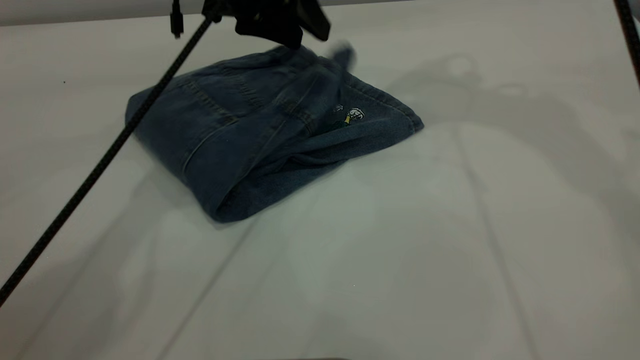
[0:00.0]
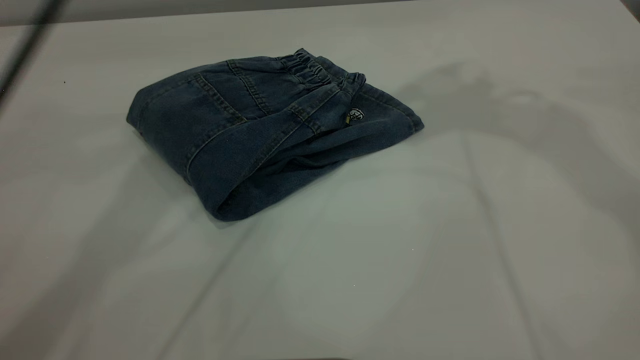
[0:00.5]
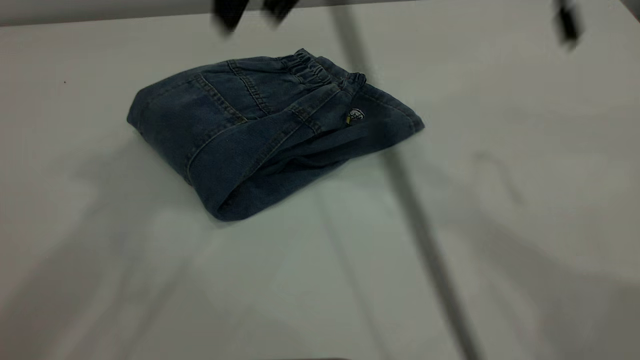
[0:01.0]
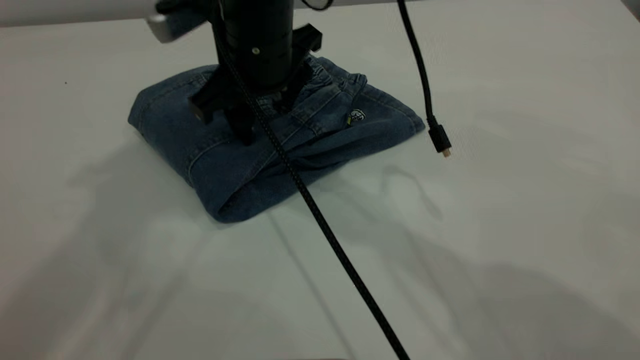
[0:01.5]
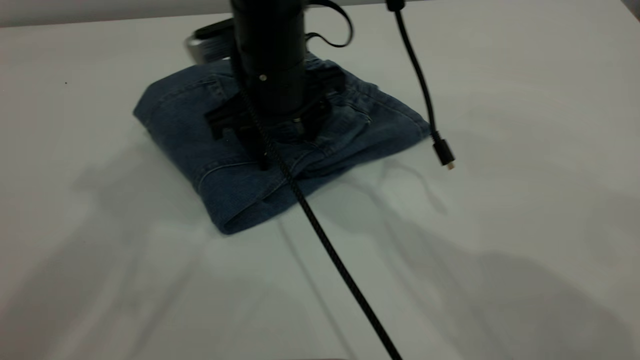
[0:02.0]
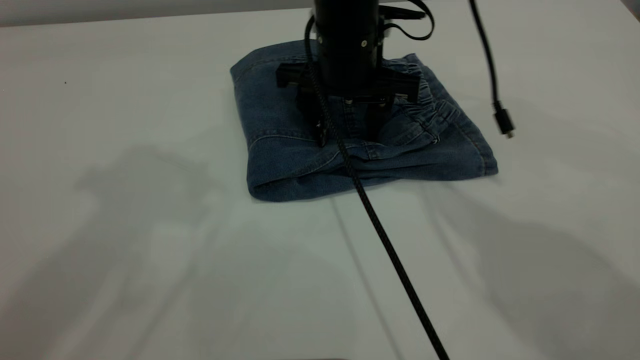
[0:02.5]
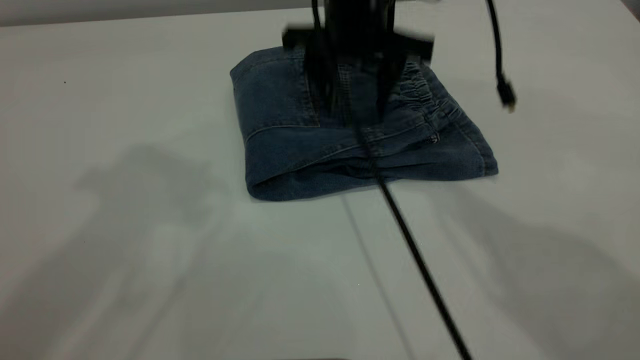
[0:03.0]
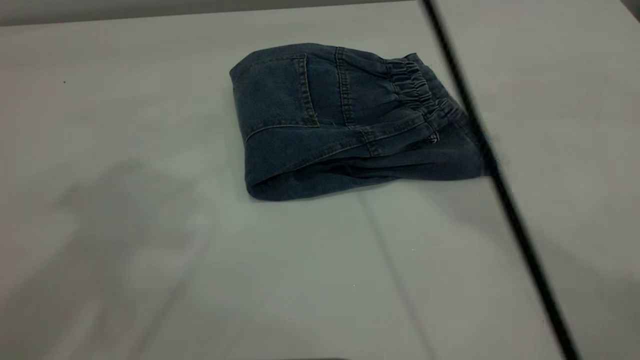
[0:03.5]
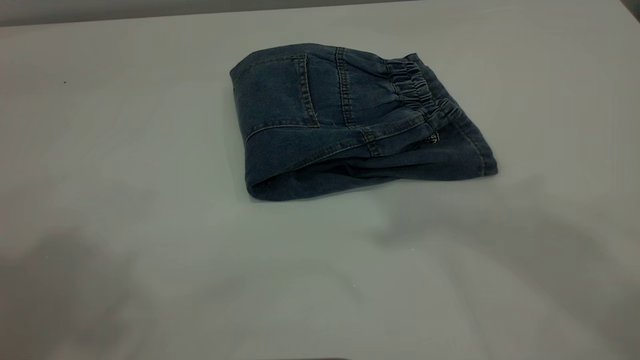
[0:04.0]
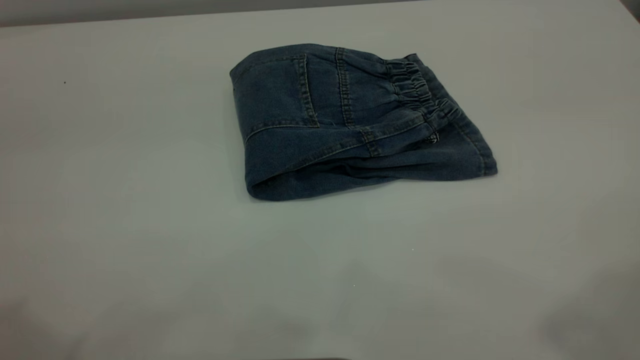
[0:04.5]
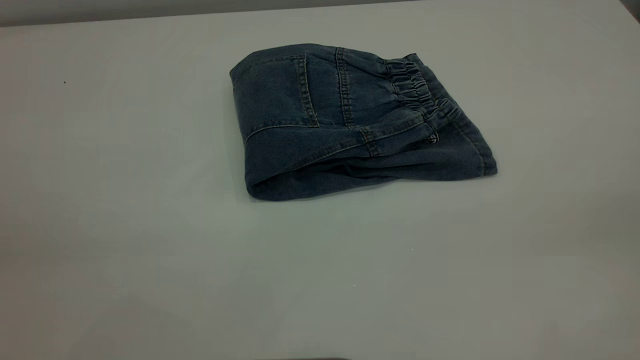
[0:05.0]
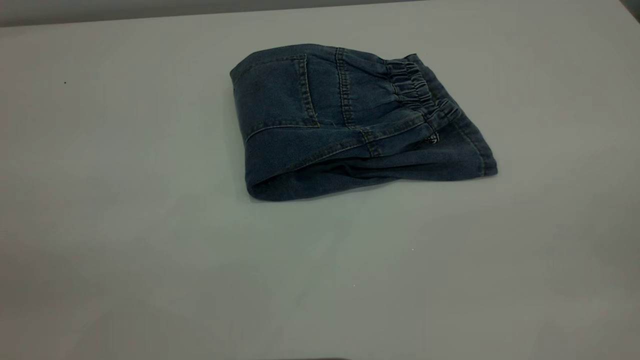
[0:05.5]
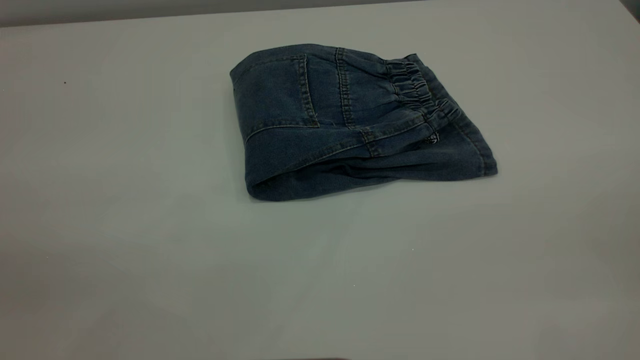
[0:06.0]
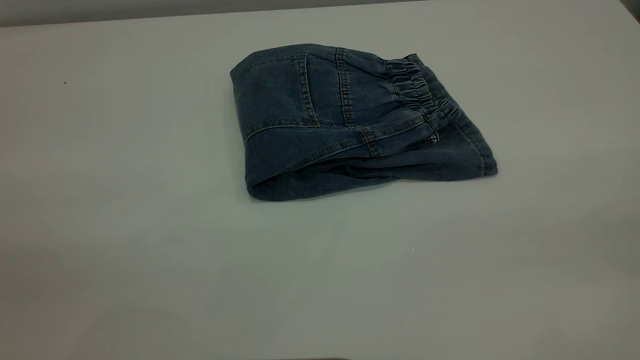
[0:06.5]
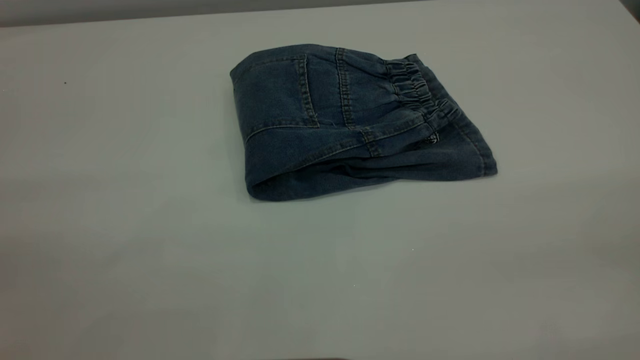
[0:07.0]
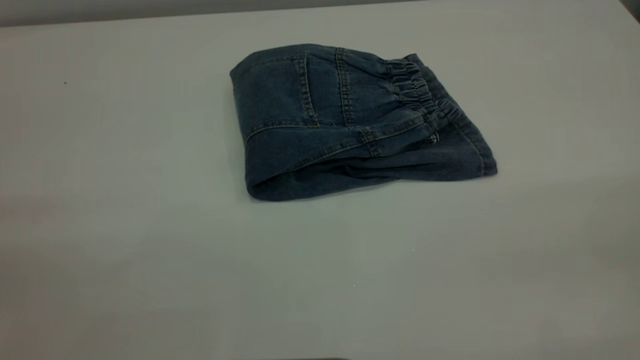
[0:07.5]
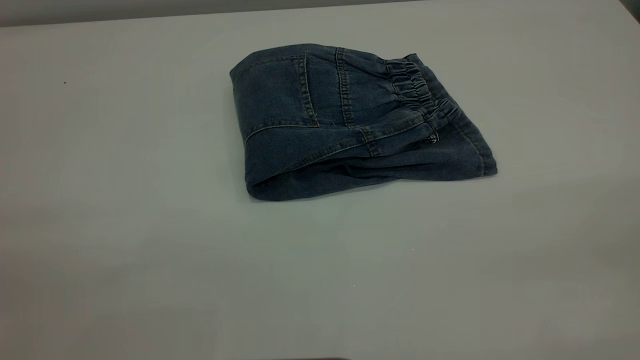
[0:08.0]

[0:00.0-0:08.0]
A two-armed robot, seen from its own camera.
0:00.0 to 0:02.0: The left gripper heads upward and backward, covering roughly 30 cm; the right gripper goes some 30 cm downward and to the left.
0:02.0 to 0:04.0: The right gripper travels upward and to the right by approximately 40 cm. Meanwhile the left gripper goes about 10 cm backward.

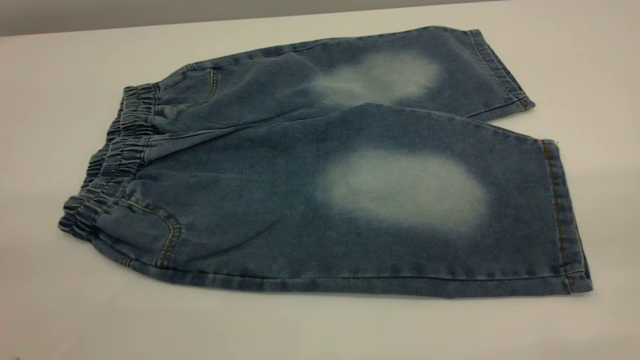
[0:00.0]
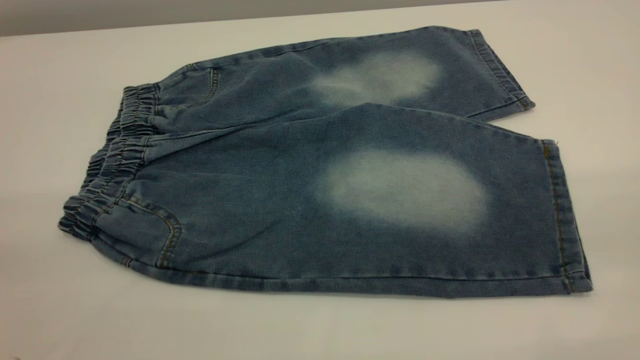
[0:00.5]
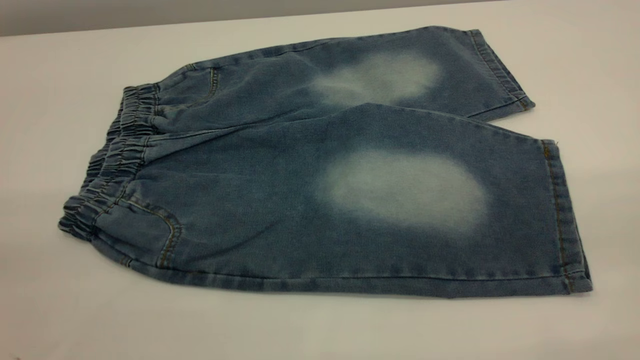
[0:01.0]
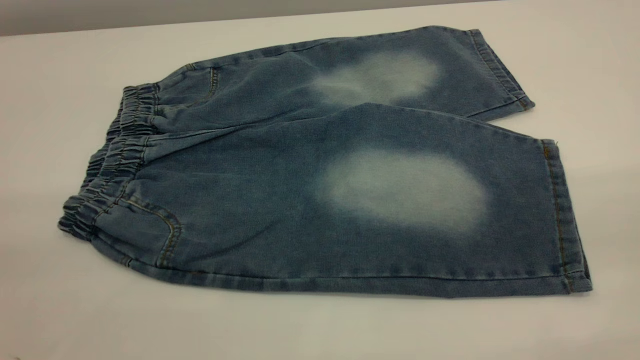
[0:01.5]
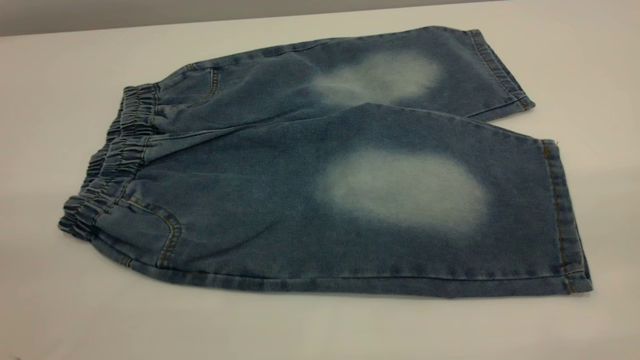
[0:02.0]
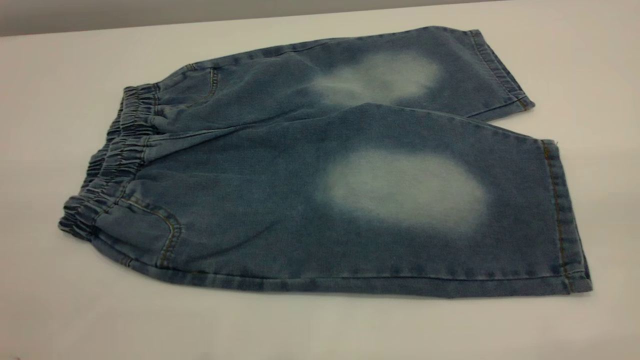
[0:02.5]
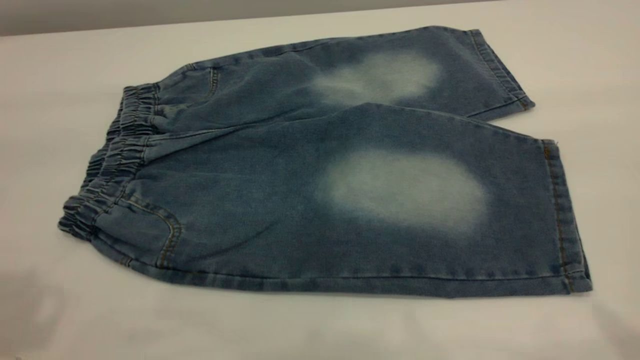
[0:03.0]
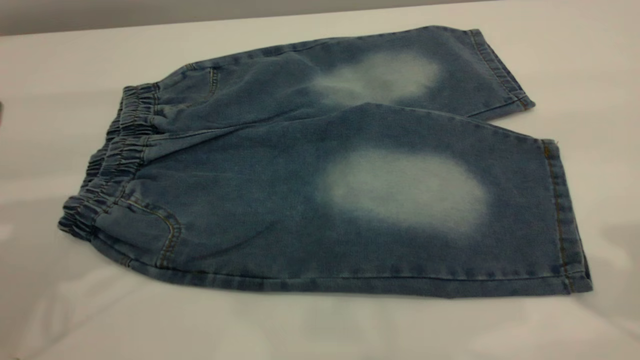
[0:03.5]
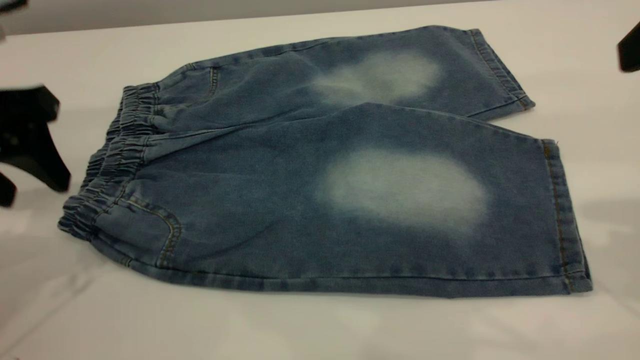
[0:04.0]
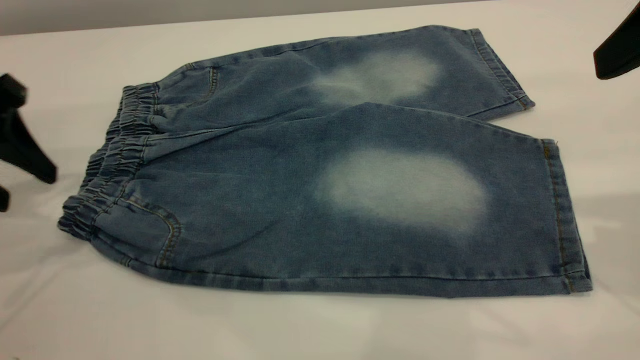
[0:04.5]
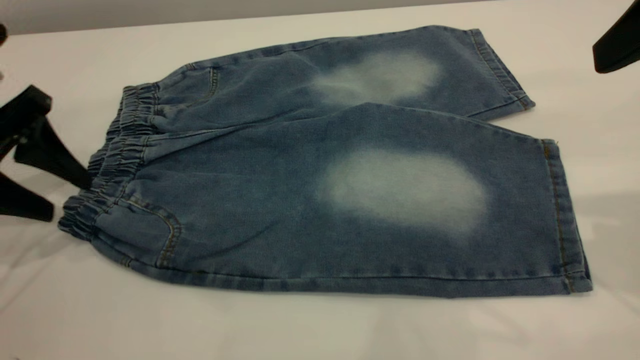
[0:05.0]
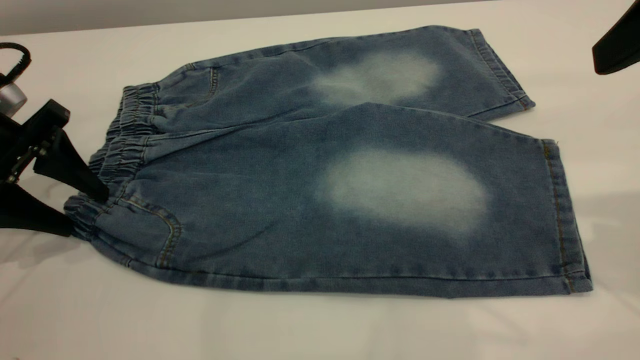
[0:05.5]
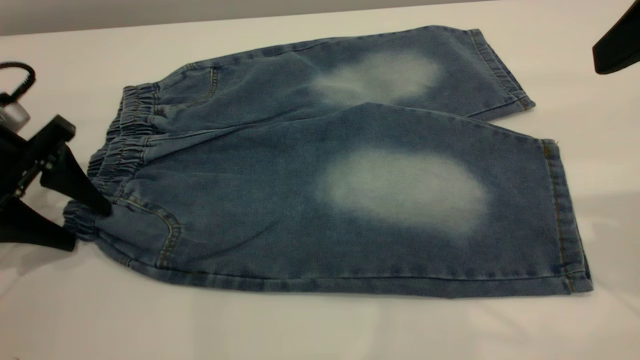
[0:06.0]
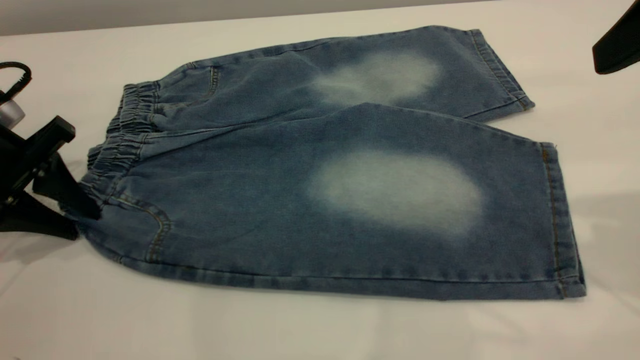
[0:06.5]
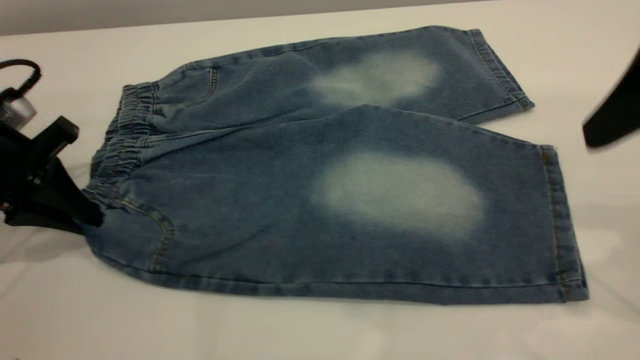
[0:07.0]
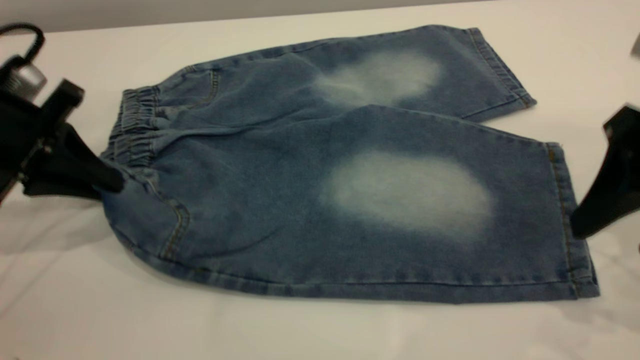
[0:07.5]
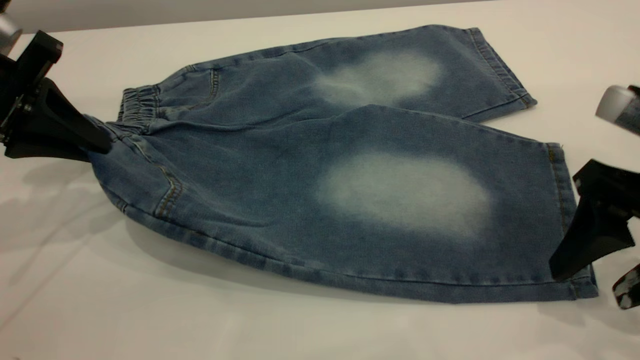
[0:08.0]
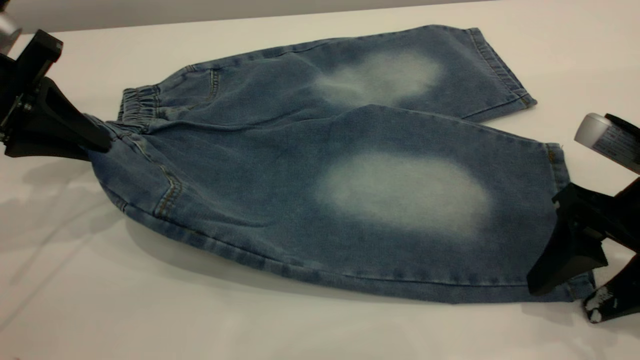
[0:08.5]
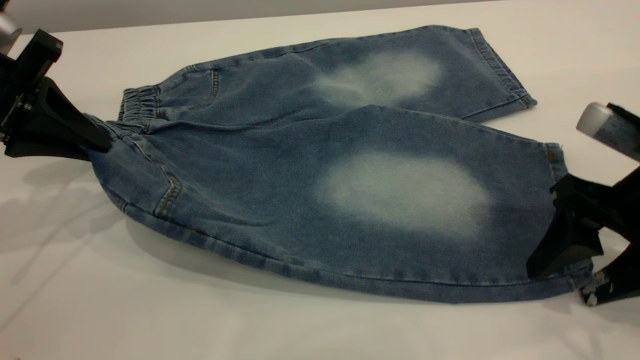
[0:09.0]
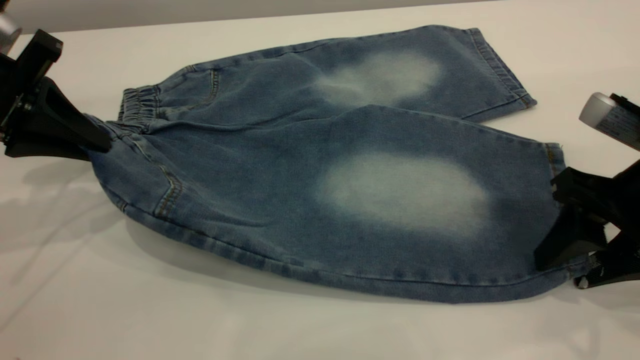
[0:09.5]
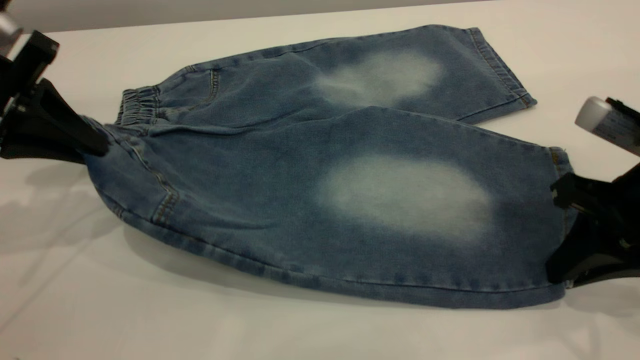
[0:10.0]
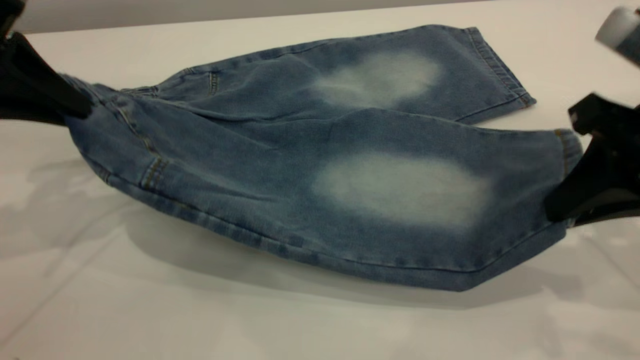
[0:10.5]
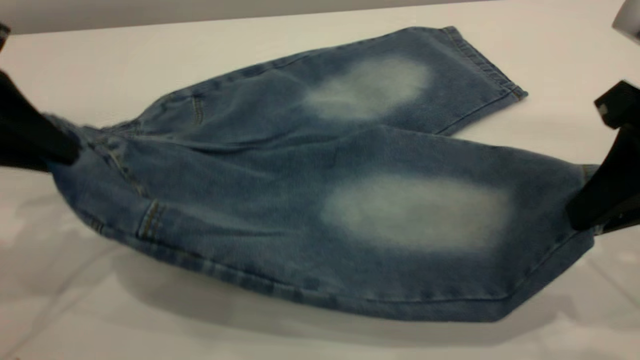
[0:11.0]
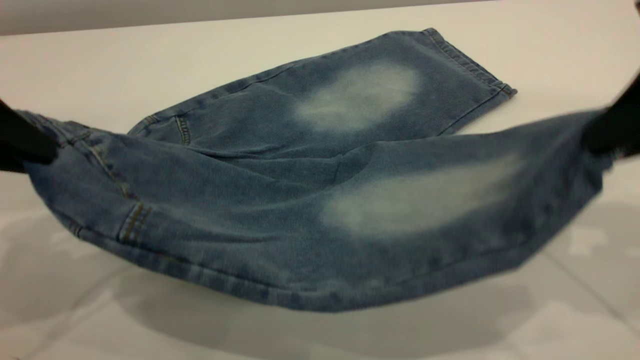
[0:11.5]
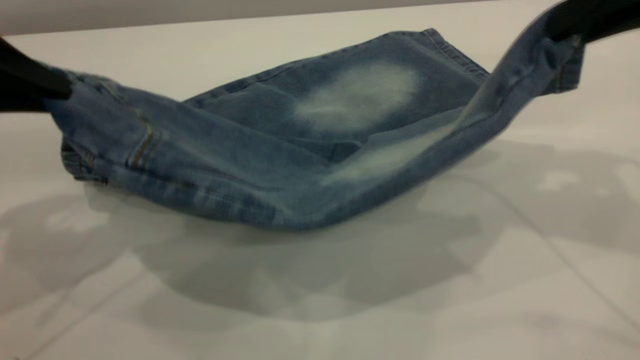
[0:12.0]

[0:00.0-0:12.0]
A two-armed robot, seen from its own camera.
0:00.0 to 0:02.0: Both grippers stay put.
0:02.0 to 0:04.0: The left gripper heads forward and downward, covering roughly 30 cm.
0:04.0 to 0:06.0: The left gripper goes roughly 10 cm downward.
0:06.0 to 0:08.0: The left gripper moves upward, approximately 5 cm, and closes its fingers, while the right gripper goes roughly 15 cm downward.
0:08.0 to 0:10.0: The right gripper closes up.
0:10.0 to 0:12.0: The right gripper goes about 15 cm upward; the left gripper is displaced upward and backward by about 10 cm.
